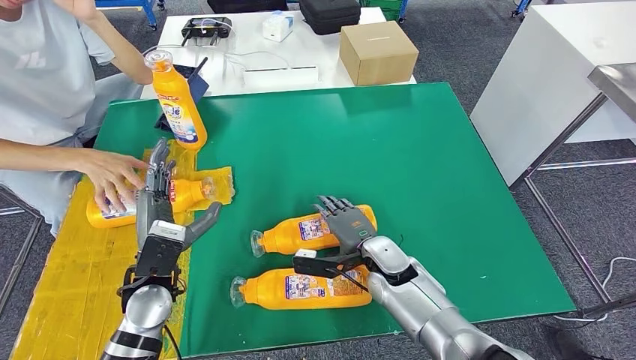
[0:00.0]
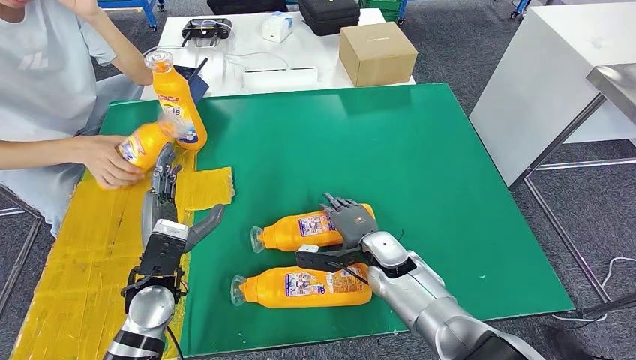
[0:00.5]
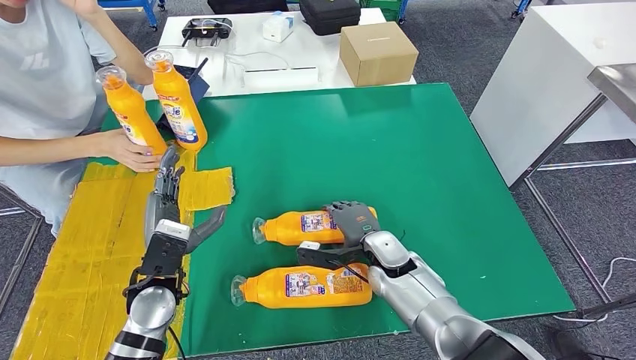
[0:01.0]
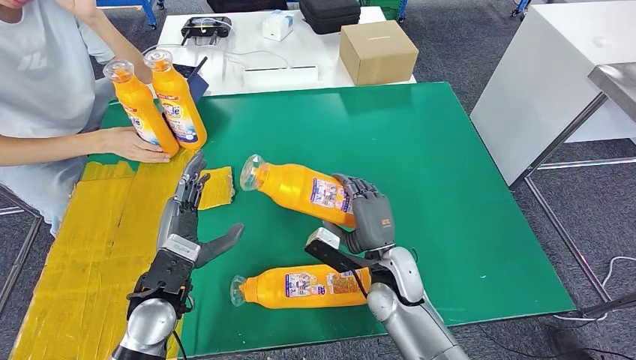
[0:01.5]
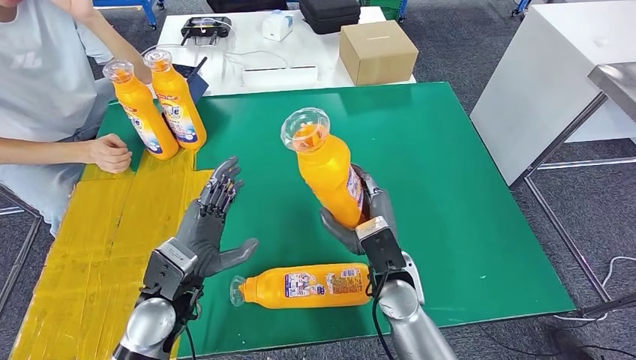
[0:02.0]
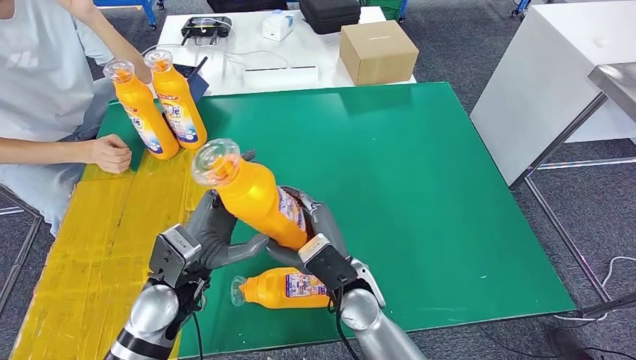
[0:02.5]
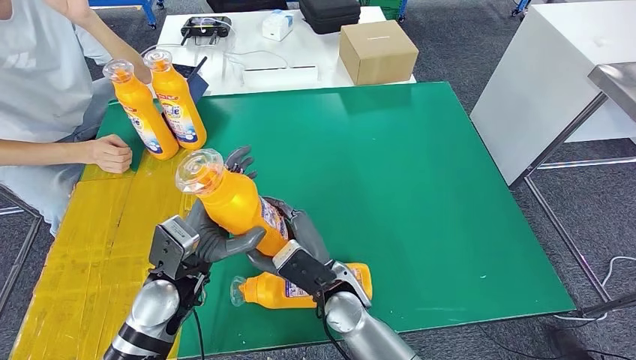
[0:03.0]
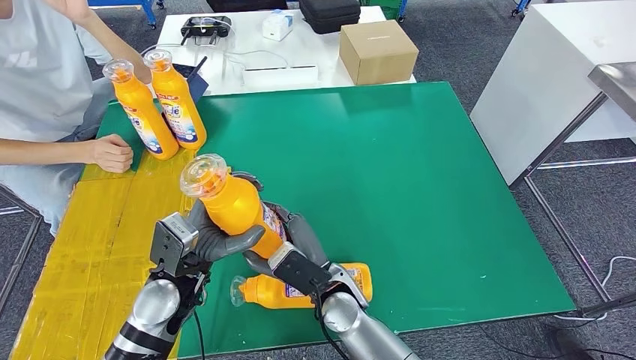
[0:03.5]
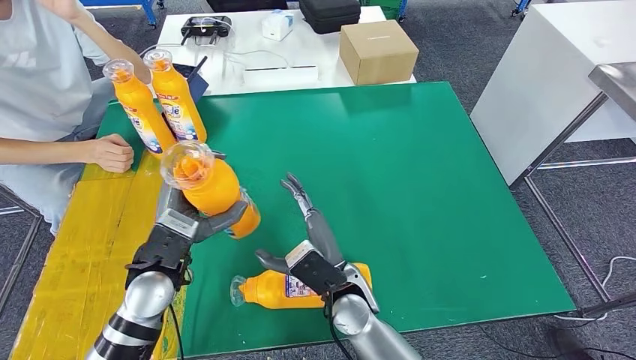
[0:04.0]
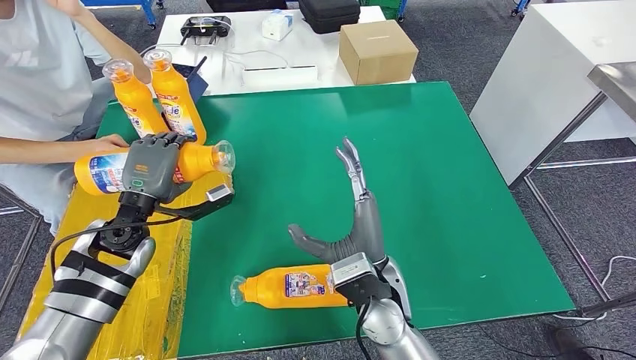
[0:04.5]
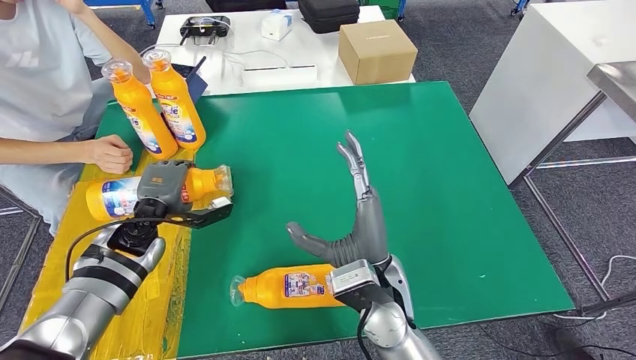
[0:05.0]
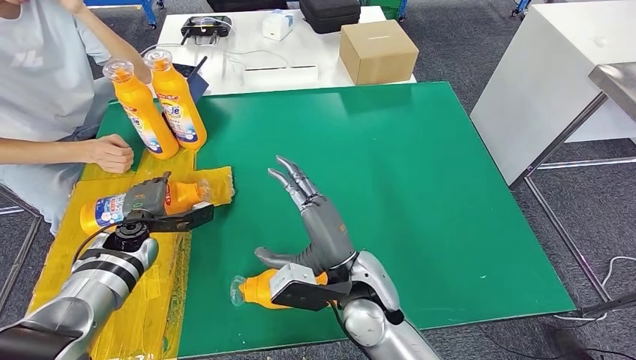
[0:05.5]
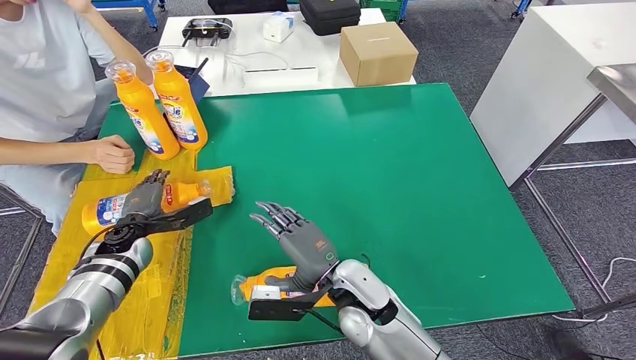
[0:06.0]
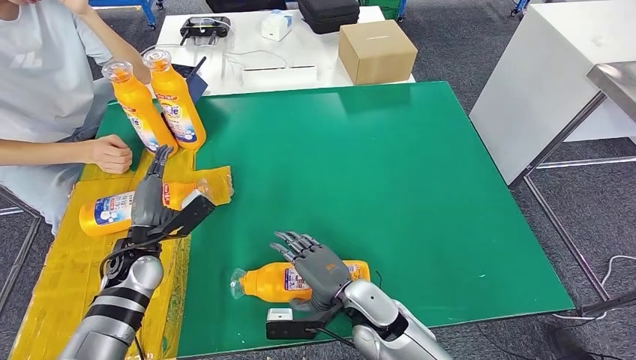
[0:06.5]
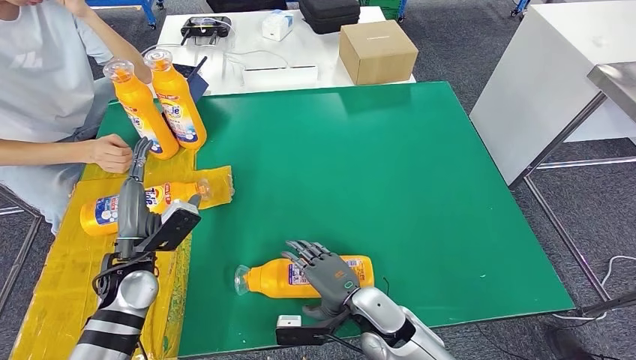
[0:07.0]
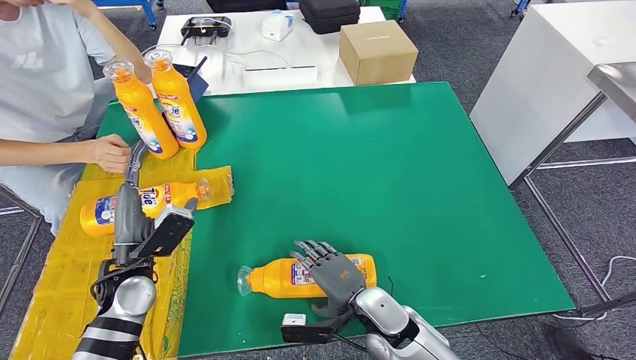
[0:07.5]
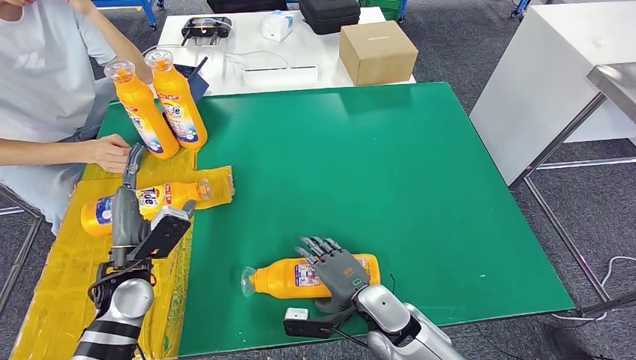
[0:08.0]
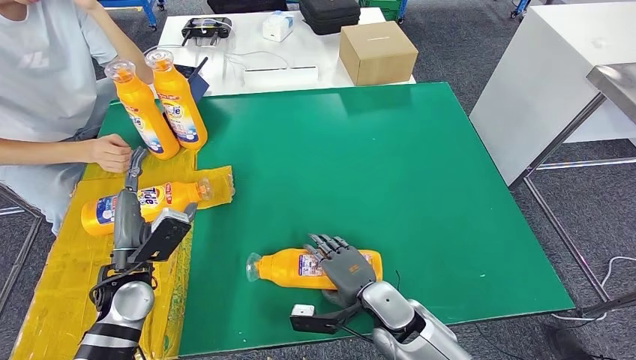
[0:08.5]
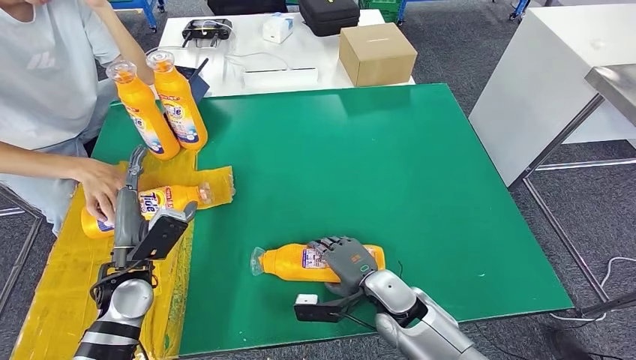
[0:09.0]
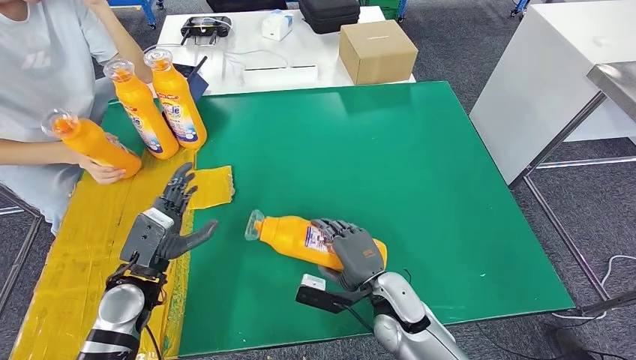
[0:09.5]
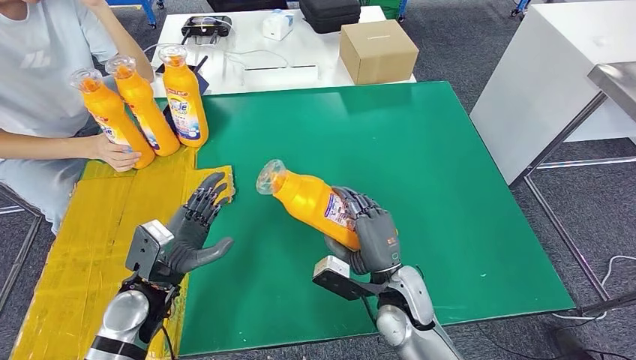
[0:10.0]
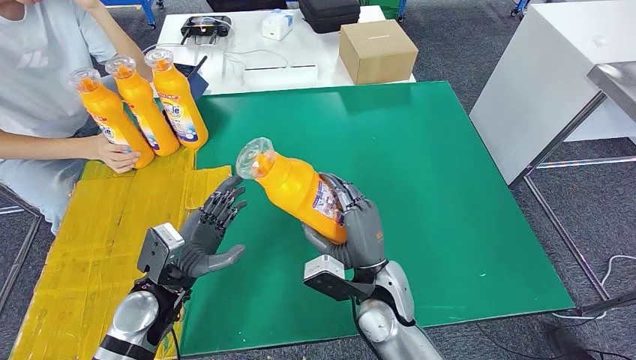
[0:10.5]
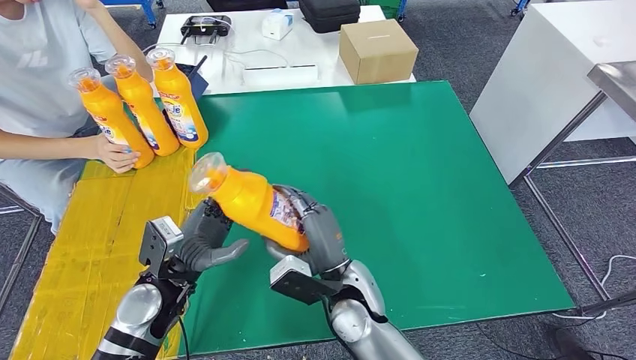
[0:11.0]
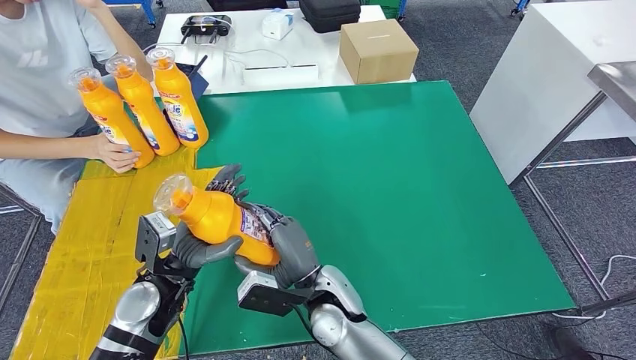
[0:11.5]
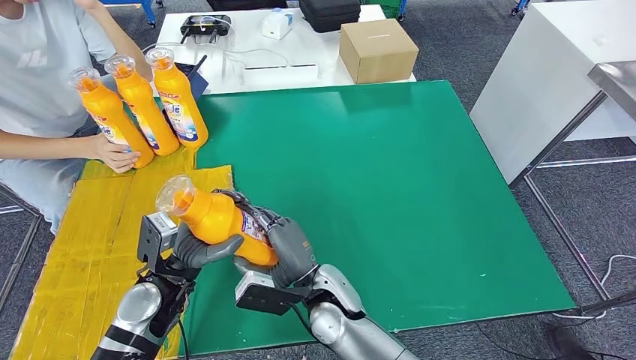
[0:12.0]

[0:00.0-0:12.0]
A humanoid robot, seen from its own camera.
Step, 0:00.0 to 0:01.5: Pick up the fast-moving consumer goods bottle from the table.
Step, 0:03.0 to 0:05.5: Flip the fast-moving consumer goods bottle to the front side.
Step, 0:08.5 to 0:10.5: Pick up the fast-moving consumer goods bottle from the table.
0:02.0 to 0:04.0: The right hand shifts about 10 cm to the left.
0:06.0 to 0:08.0: The left hand is displaced backward and to the right by roughly 10 cm. The right hand heads downward and to the right, covering about 10 cm.
0:10.0 to 0:12.0: The right hand travels to the left by some 10 cm.

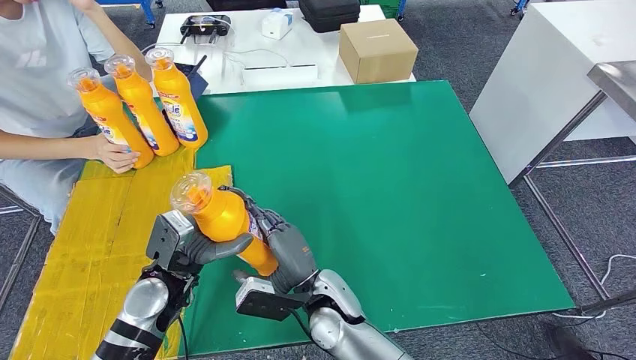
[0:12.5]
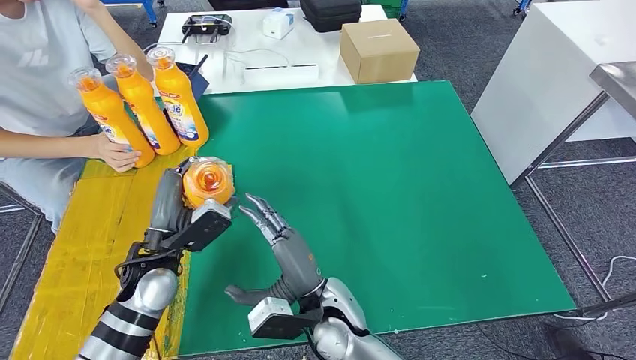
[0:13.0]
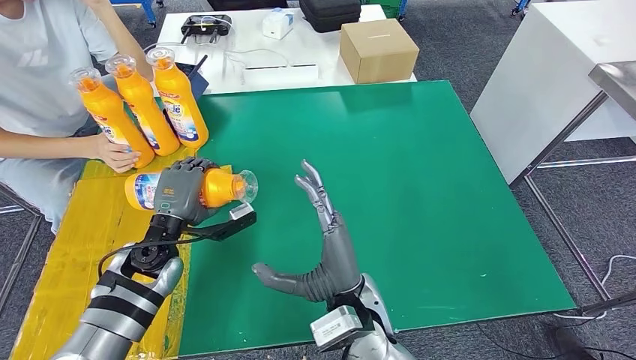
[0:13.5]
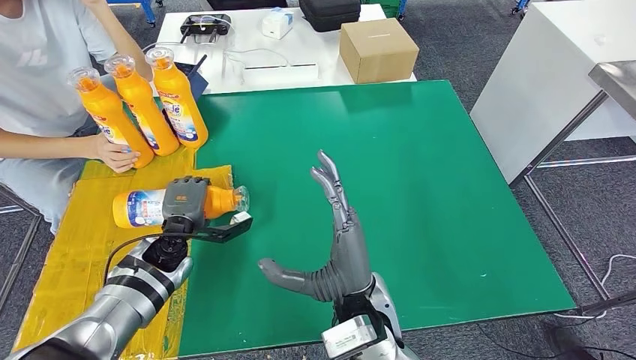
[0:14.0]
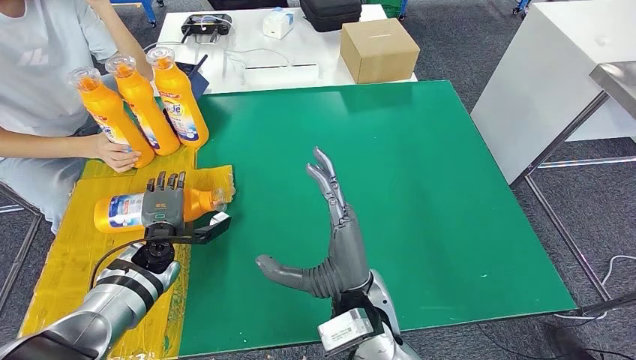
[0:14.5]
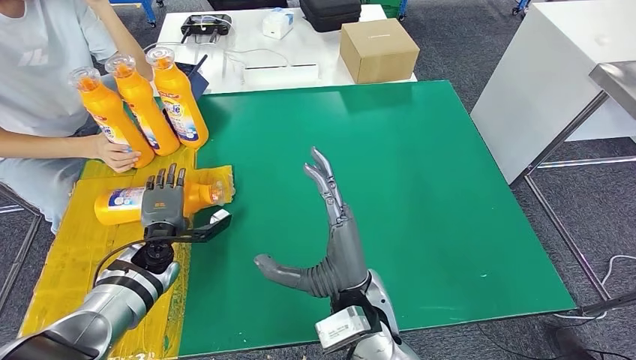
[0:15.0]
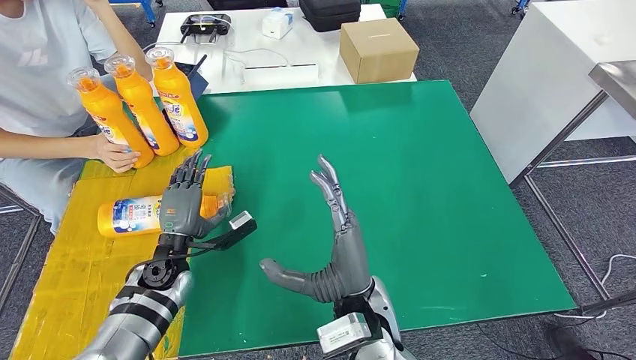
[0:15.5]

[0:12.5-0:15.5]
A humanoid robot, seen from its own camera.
Step, 0:12.5 to 0:15.5: Flip the fast-moving consumer goods bottle to the front side.
0:12.5 to 0:14.0: The right hand shifts roughly 10 cm upward and to the right. Meanwhile the left hand heads forward, covering roughly 10 cm.
